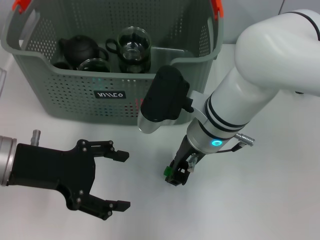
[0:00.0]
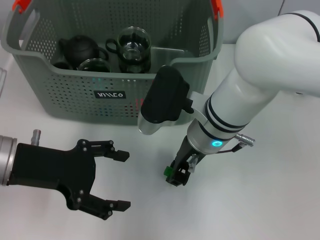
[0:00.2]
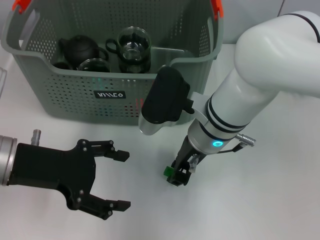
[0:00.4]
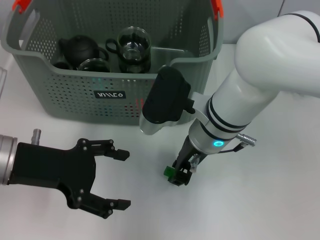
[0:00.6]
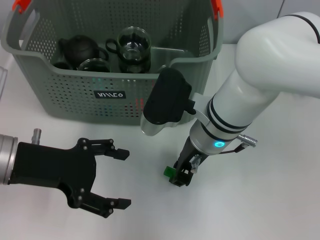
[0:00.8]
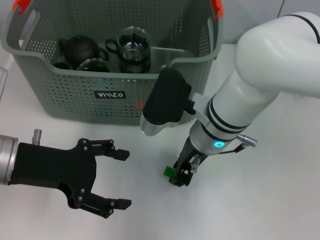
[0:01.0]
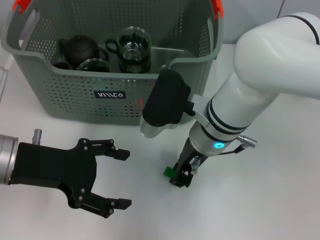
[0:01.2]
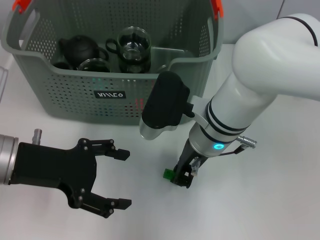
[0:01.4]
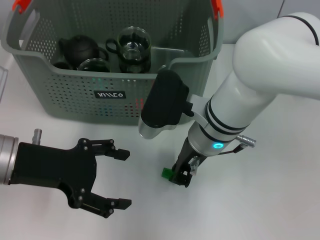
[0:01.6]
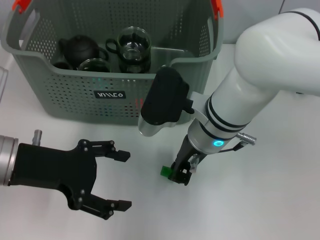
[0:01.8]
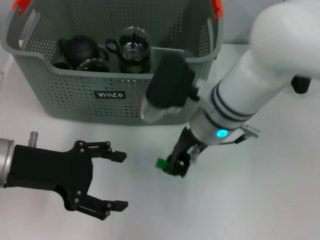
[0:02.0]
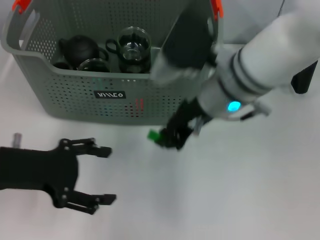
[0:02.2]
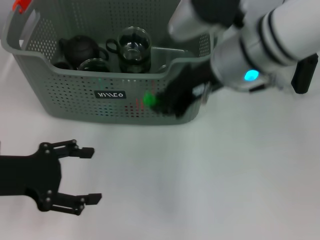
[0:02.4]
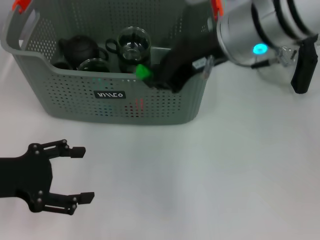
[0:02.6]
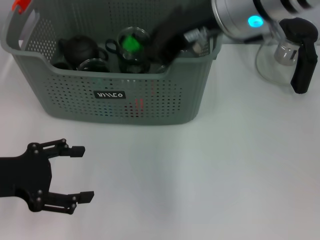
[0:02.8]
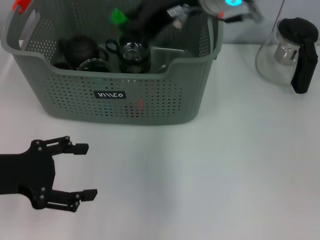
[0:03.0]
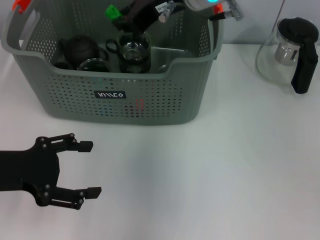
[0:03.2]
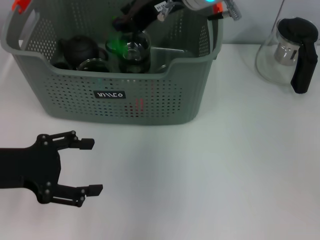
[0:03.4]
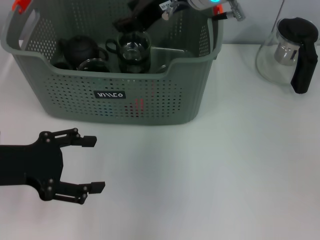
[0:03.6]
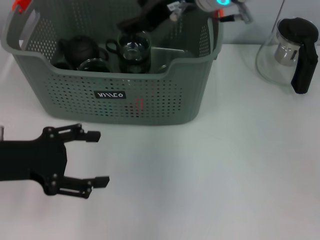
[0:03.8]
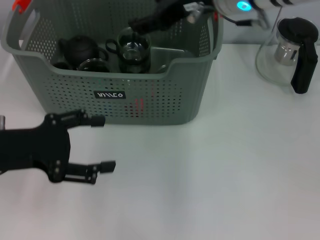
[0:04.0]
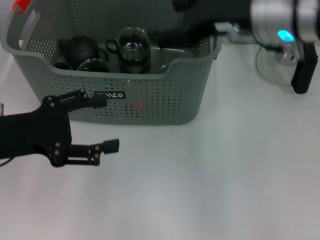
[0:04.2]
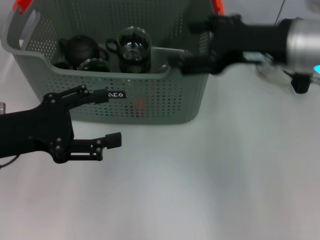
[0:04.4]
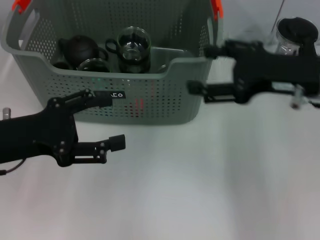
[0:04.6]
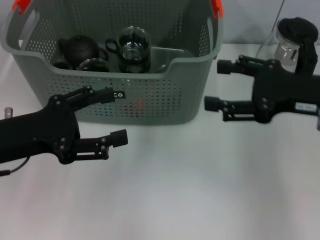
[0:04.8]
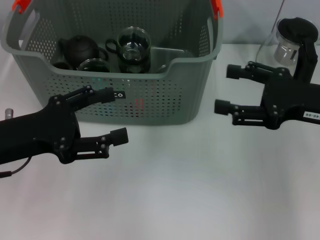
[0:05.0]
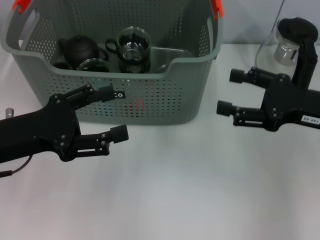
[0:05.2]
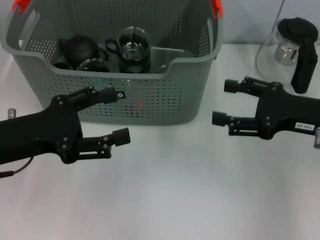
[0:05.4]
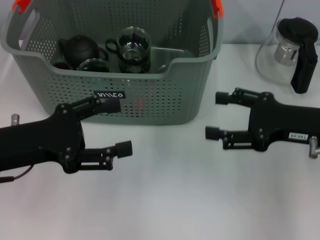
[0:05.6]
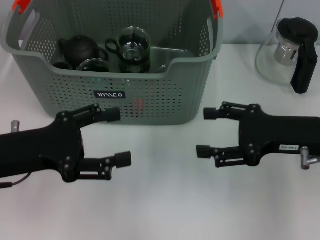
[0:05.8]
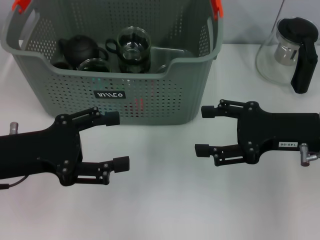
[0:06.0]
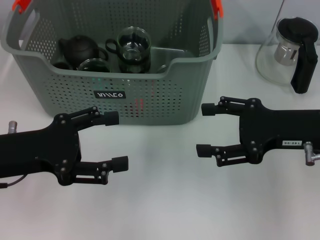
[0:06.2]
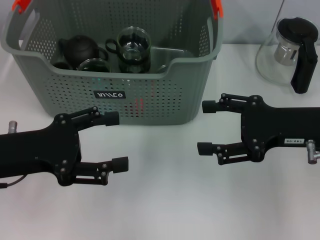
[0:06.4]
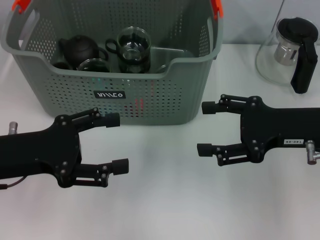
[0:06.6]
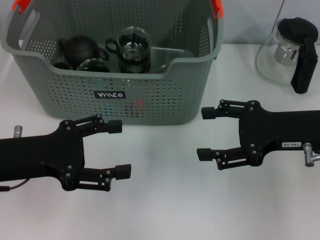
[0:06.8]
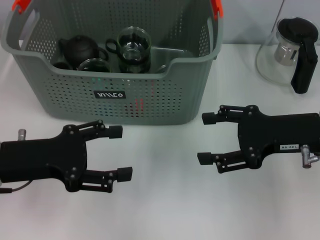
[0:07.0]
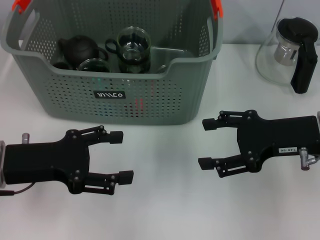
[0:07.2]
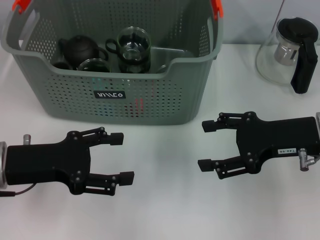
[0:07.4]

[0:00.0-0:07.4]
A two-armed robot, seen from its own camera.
Task of the whole recording: pick up the teacup on the table and place it into the storage bin, pick up the block on the table and place it into the storage bin.
Step, 0:01.8 to 0:03.4: Place the green block in the storage box with right gripper.
0:00.0 to 0:01.4: Both grippers stay put.
0:01.4 to 0:03.0: The left gripper moves to the left, roughly 5 cm. The right gripper is displaced upward by roughly 15 cm.
0:03.0 to 0:04.4: The right gripper travels to the right and downward by approximately 10 cm, and opens.
0:04.4 to 0:06.0: The right gripper is displaced downward and to the right by roughly 10 cm.
0:06.0 to 0:07.4: The grippers move only a little.
